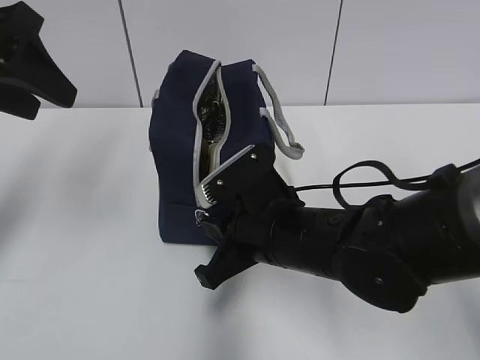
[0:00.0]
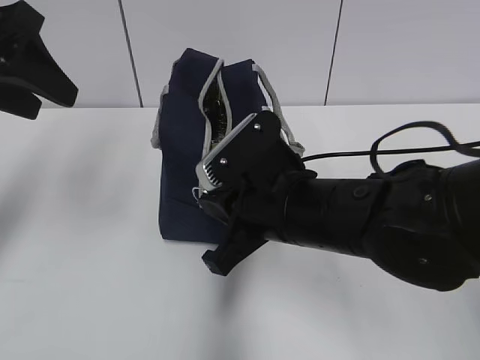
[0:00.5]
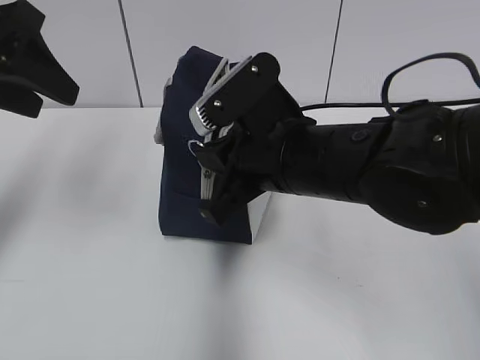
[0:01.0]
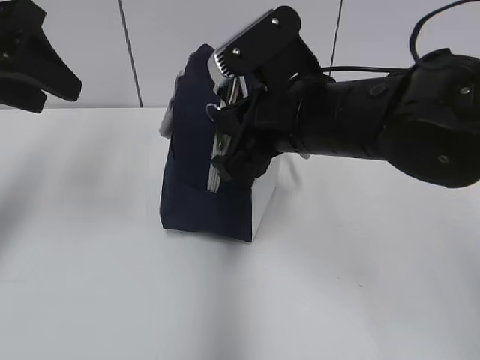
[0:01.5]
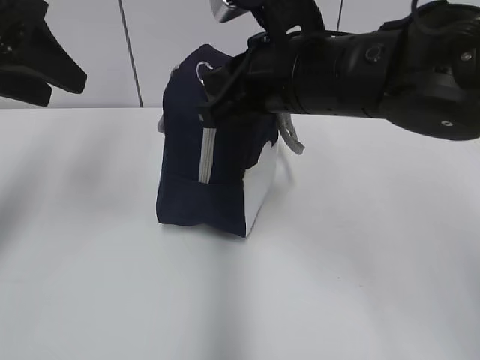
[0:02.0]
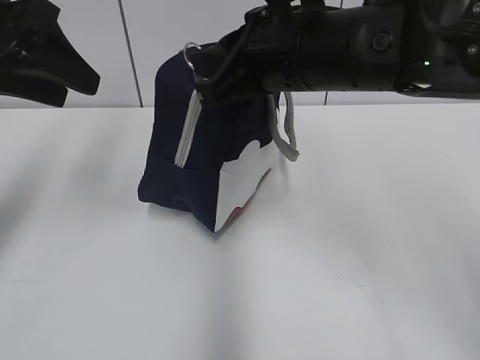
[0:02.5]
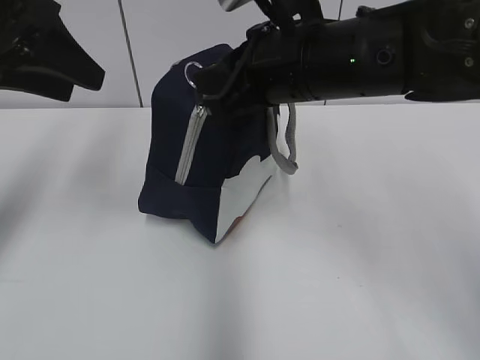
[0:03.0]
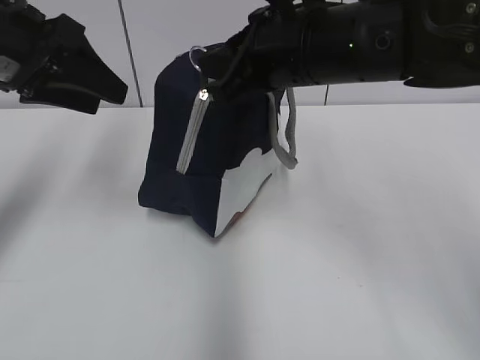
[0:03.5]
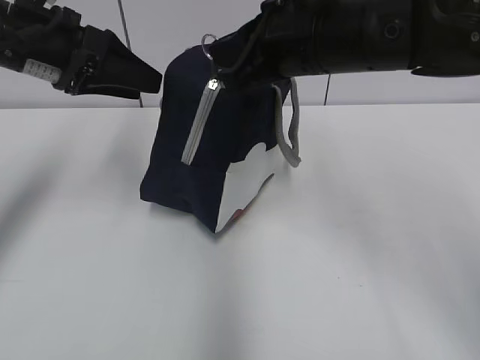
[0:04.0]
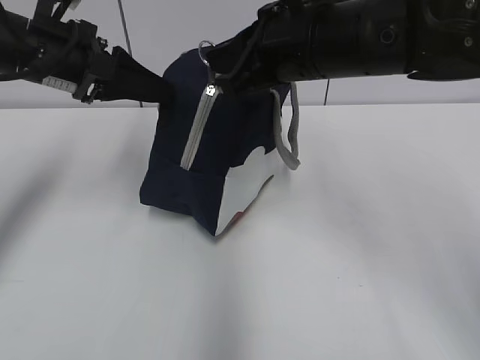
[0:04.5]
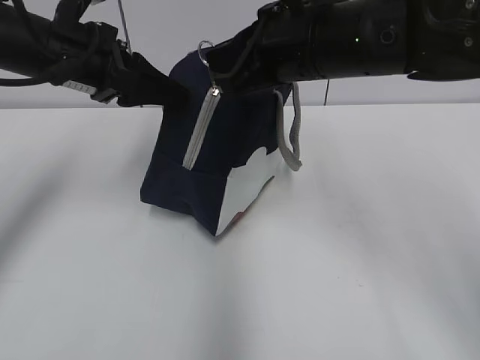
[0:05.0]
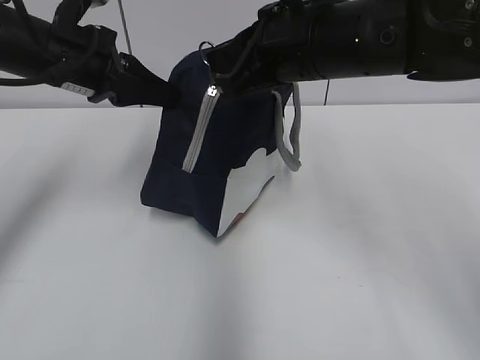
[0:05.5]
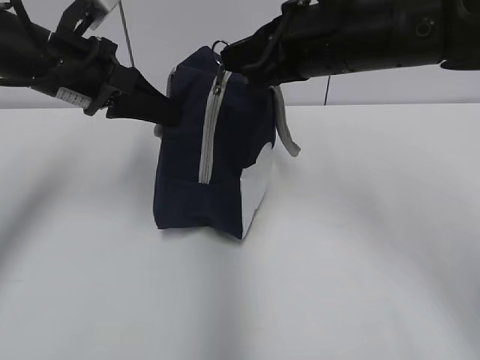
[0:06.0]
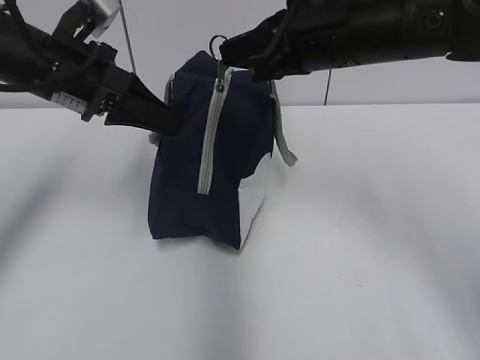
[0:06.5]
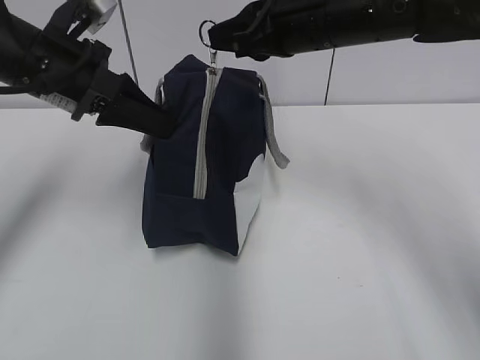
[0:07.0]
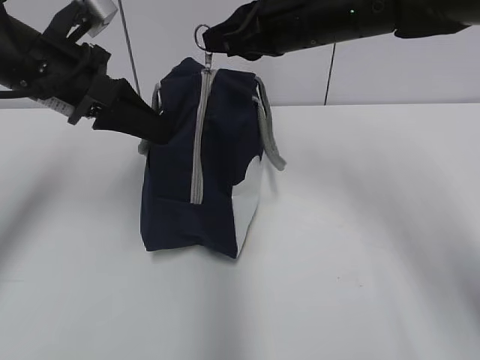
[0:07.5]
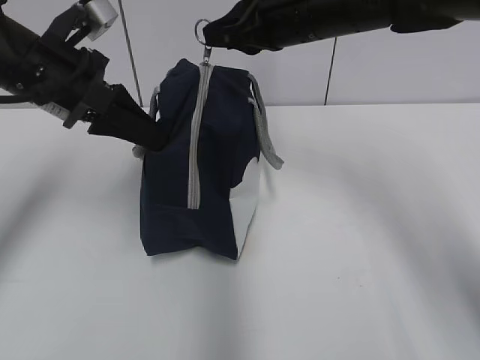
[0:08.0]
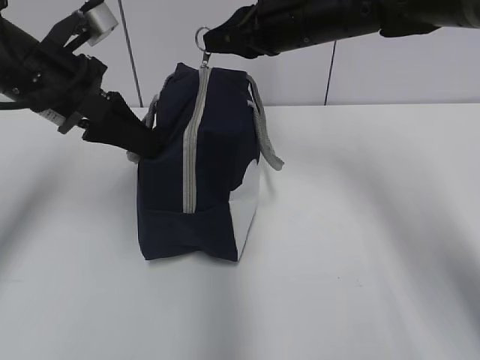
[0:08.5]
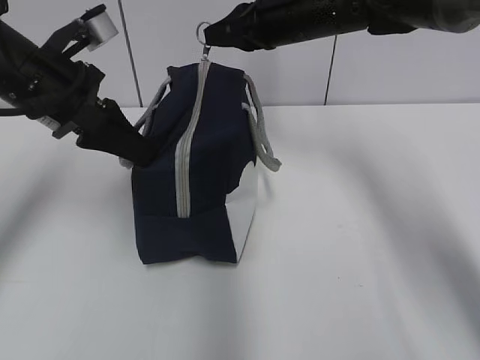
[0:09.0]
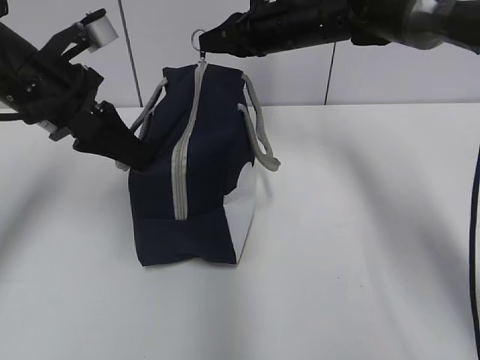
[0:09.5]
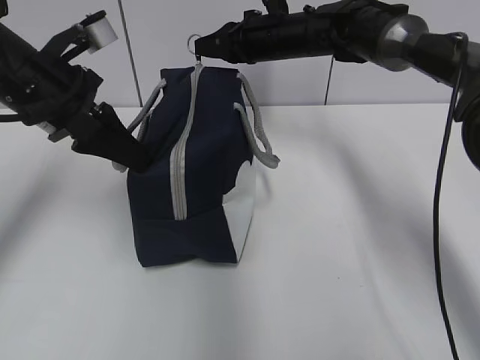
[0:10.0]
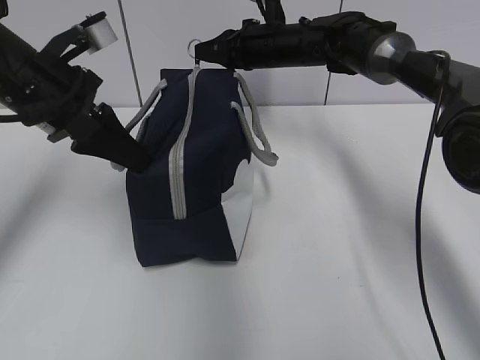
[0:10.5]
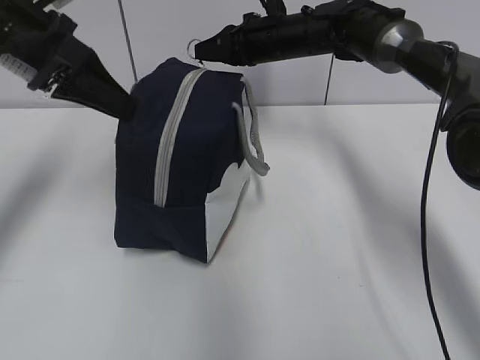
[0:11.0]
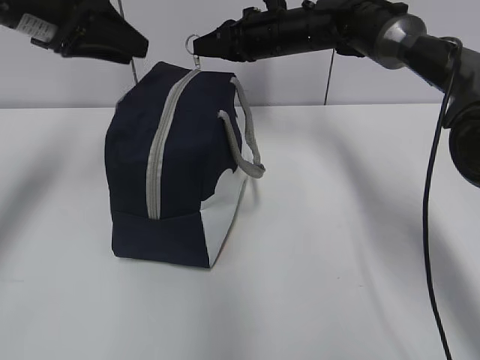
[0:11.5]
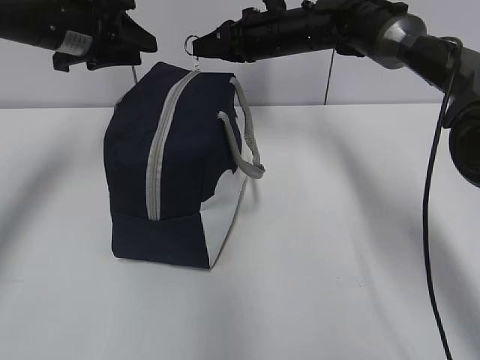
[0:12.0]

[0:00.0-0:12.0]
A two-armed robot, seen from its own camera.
Step, 0:00.0 to 0:06.0: Grab the lunch bag with your left hand.
0:00.0 to 0:02.0: The right gripper goes some 15 cm upward.
0:02.0 to 0:04.0: The left gripper heads forward and downward, covering about 10 cm.
0:04.0 to 0:06.0: The left gripper closes up.
0:06.0 to 0:08.0: The right gripper is displaced forward by some 5 cm.
0:08.0 to 0:10.0: The right gripper is displaced forward and downward by about 15 cm.
0:10.0 to 0:12.0: The left gripper heads forward, covering some 10 cm, and opens its fingers.

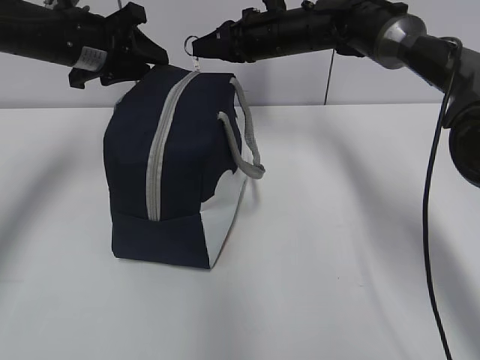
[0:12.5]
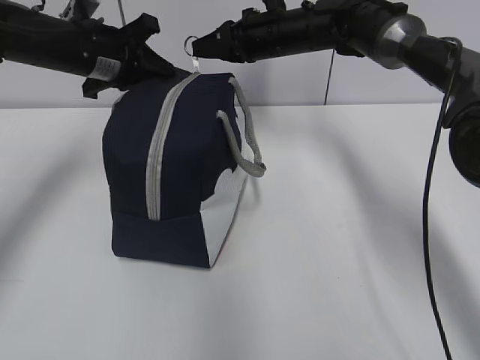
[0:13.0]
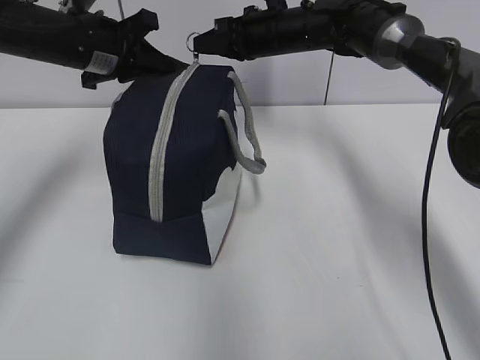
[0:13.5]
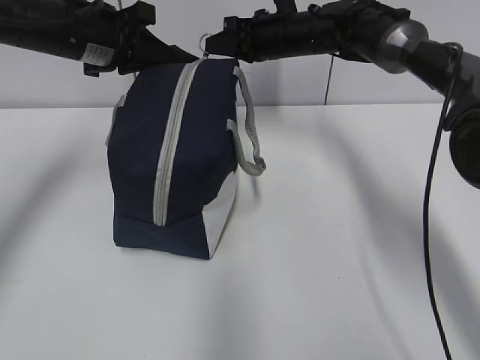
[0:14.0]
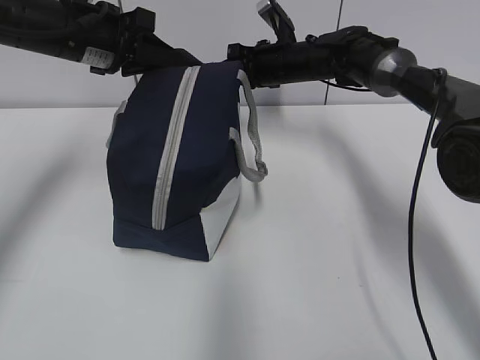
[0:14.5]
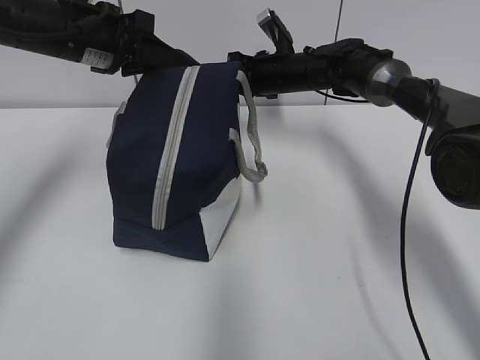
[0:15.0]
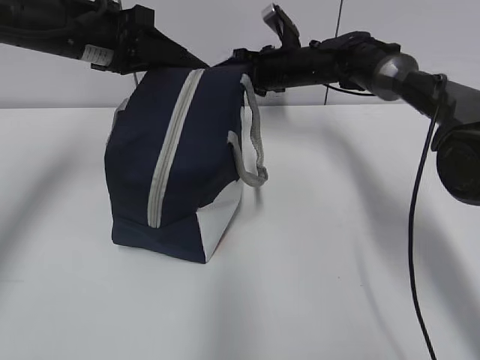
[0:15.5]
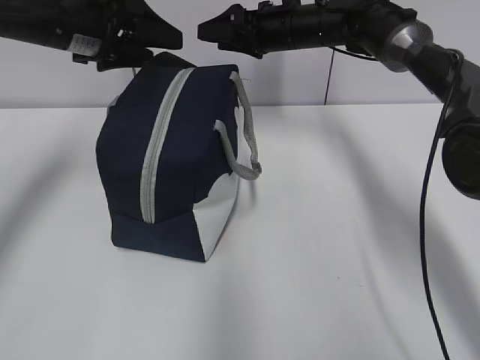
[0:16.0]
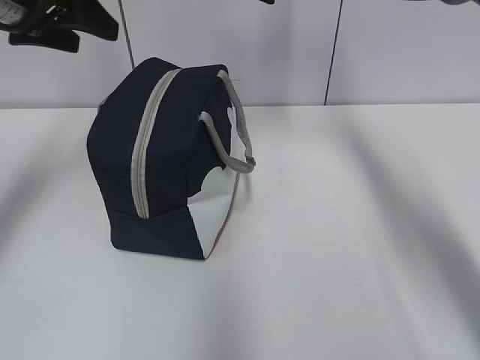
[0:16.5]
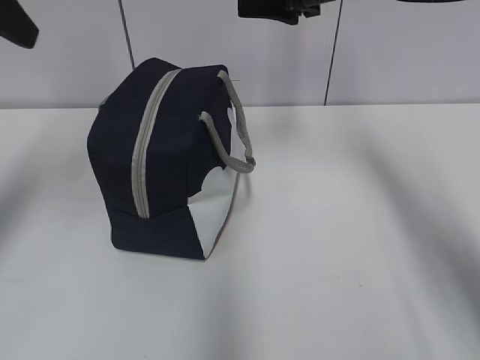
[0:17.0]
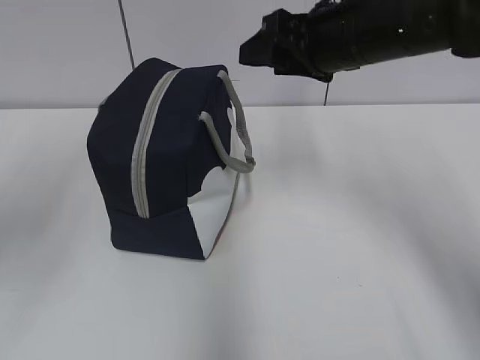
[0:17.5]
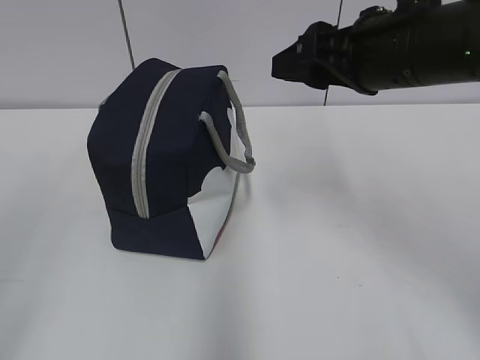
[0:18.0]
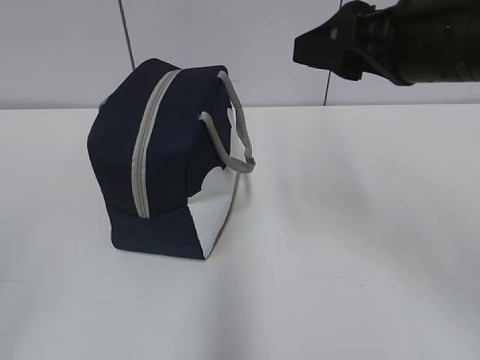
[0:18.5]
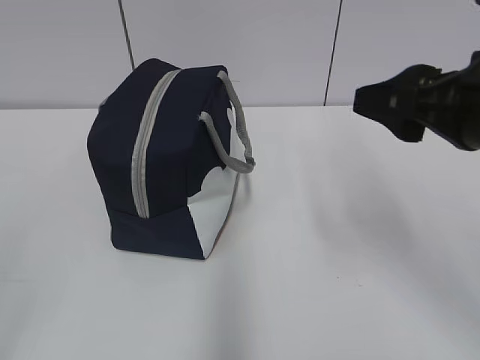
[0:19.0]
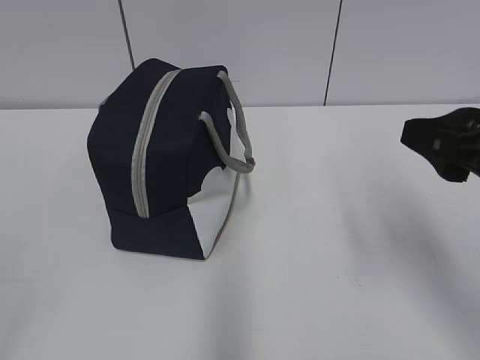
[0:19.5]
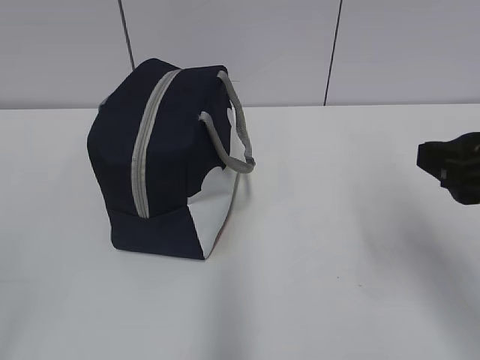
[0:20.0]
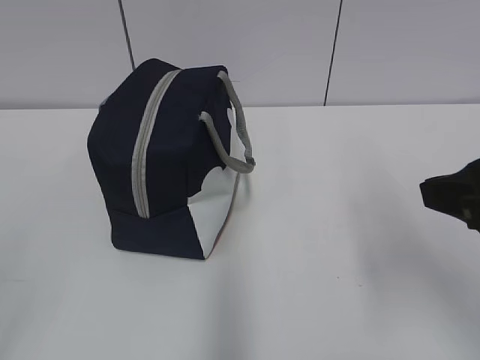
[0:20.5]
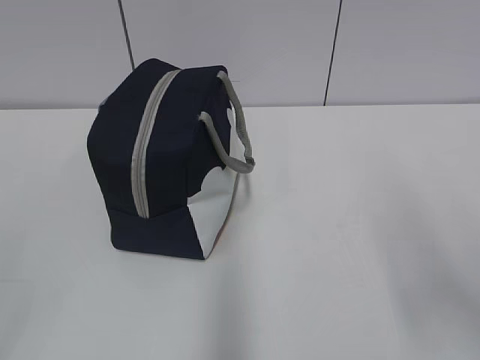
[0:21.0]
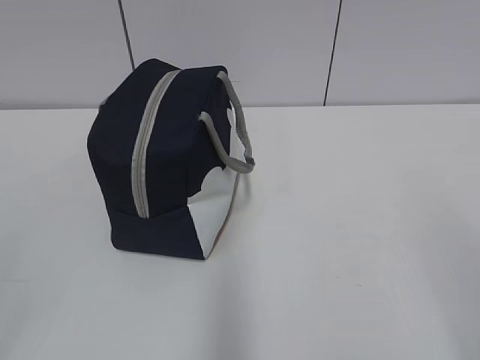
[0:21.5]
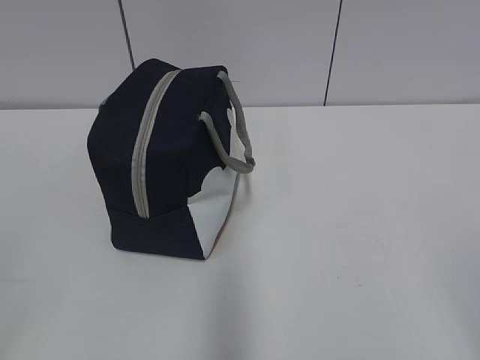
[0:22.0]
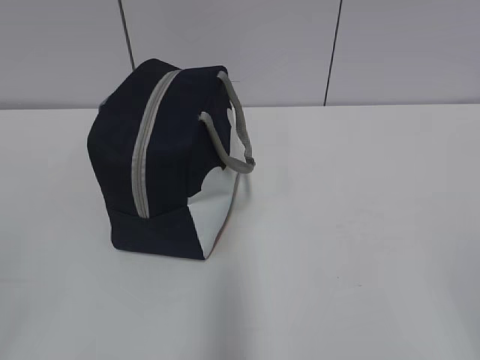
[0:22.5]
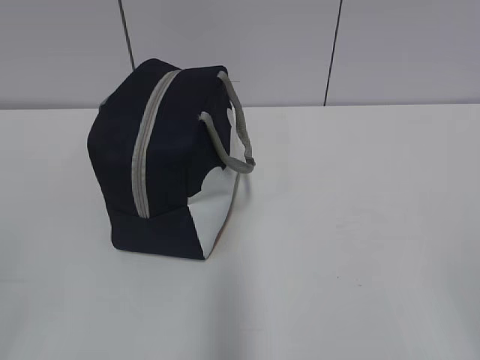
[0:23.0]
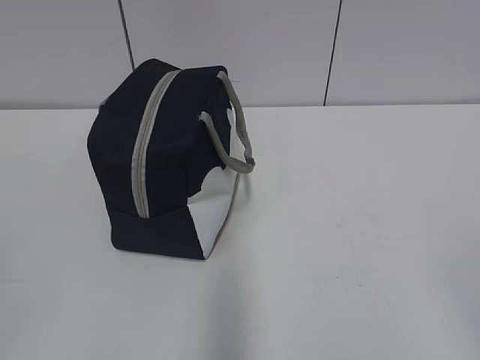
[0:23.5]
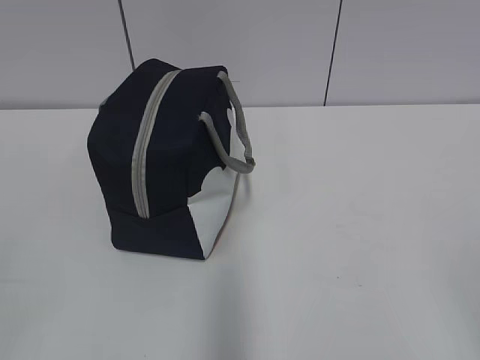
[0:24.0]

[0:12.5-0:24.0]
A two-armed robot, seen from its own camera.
Step, 0:12.5 to 0:15.0: Pull the zipper with your right hand.
0:12.5 to 0:14.5: The right gripper travels downward by roughly 5 cm, while the left gripper closes its fingers.
0:14.5 to 0:16.5: The left gripper is displaced upward and to the left by some 10 cm, and opens up, while the right gripper heads upward, covering about 15 cm, and opens.
0:16.5 to 0:18.5: The right gripper moves backward, about 25 cm. The left gripper goes some 35 cm backward.
0:18.5 to 0:20.0: The right gripper shifts about 10 cm backward, to the right and downward.
0:20.0 to 0:22.0: The right gripper travels backward by about 20 cm.

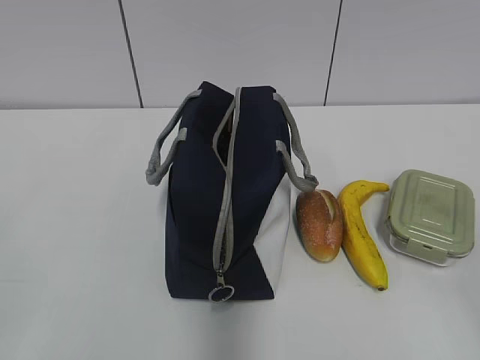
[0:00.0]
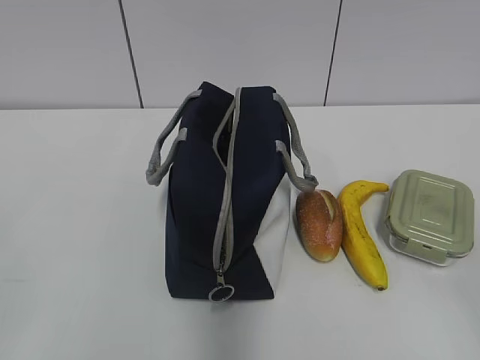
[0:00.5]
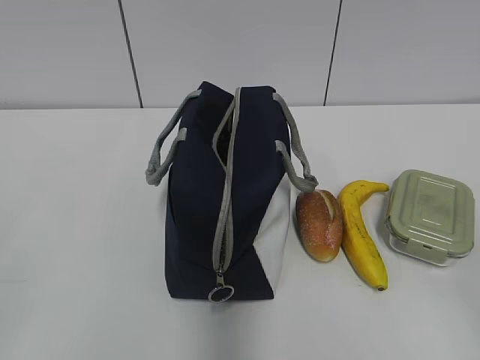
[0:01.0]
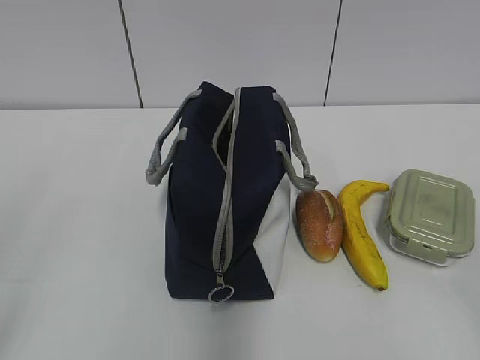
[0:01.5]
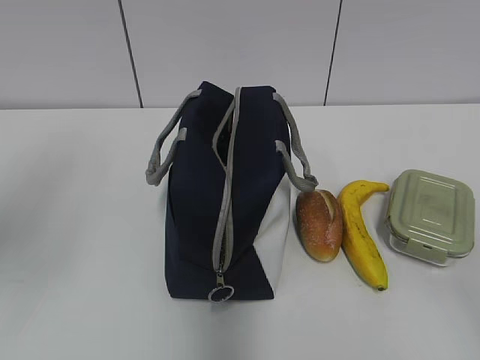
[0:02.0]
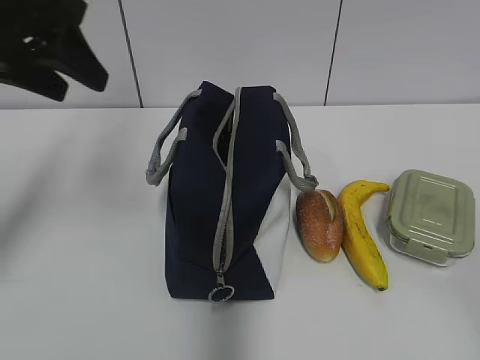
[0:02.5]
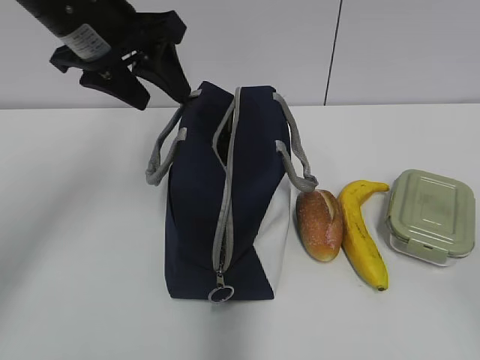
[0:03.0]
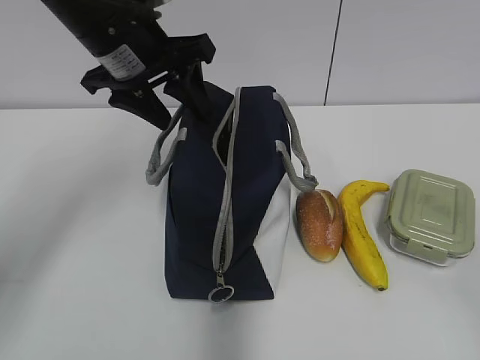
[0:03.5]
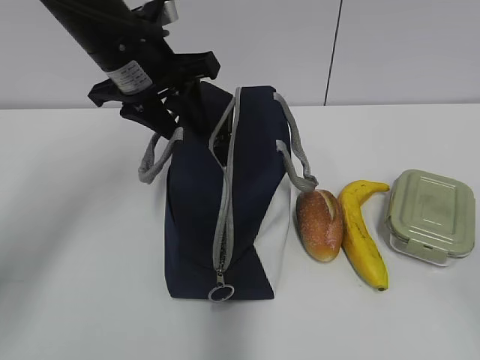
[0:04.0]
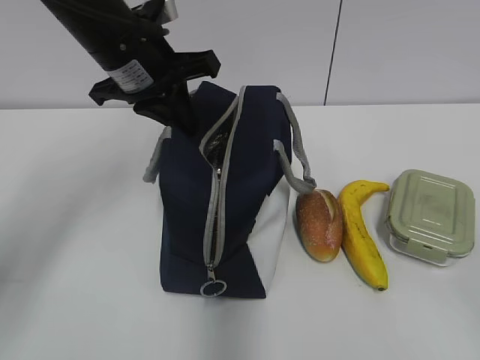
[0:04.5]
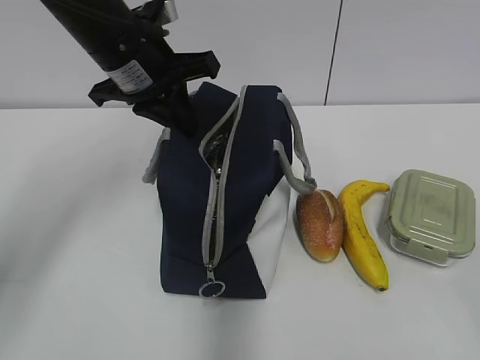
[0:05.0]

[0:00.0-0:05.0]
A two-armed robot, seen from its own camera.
0:02.5 to 0:05.0: The left gripper heads to the right, forward and downward, covering roughly 15 cm, and closes its fingers.
